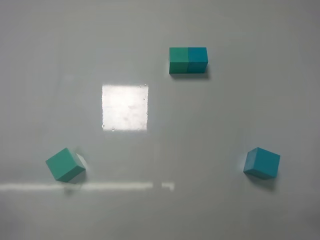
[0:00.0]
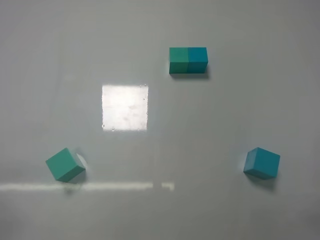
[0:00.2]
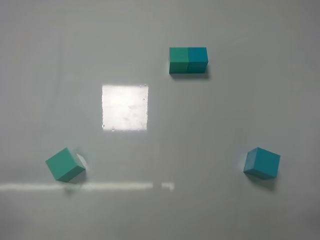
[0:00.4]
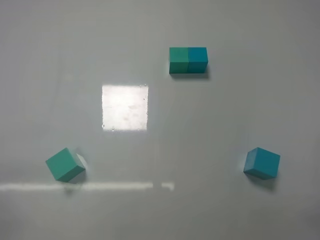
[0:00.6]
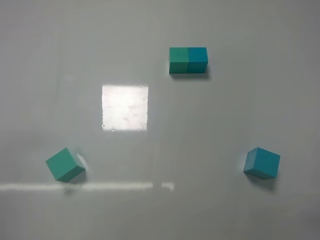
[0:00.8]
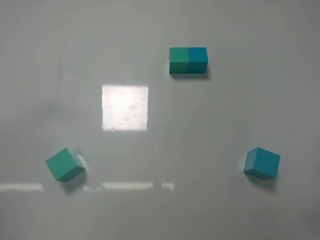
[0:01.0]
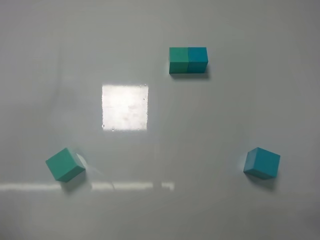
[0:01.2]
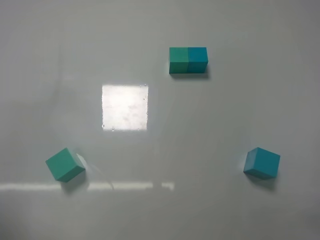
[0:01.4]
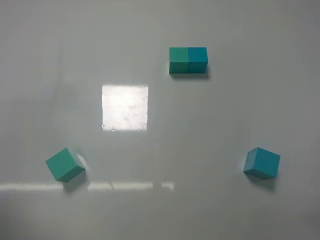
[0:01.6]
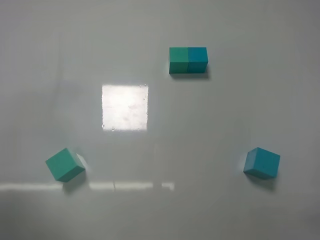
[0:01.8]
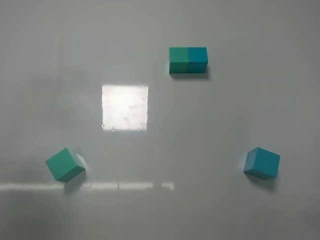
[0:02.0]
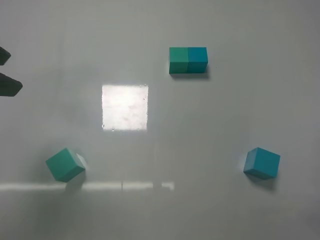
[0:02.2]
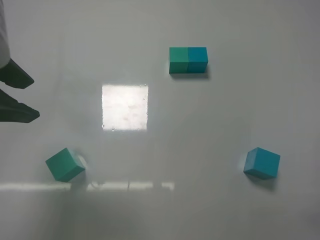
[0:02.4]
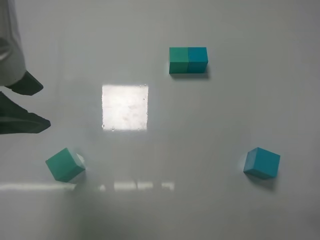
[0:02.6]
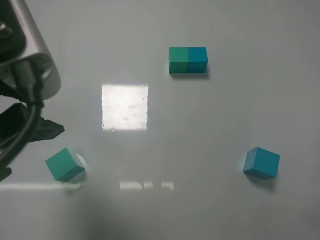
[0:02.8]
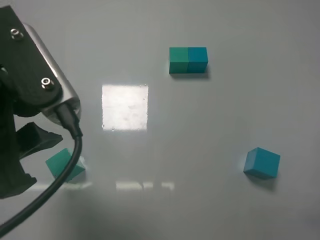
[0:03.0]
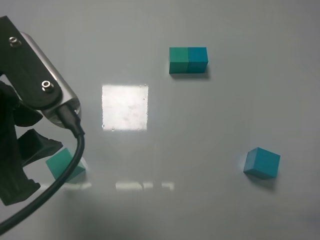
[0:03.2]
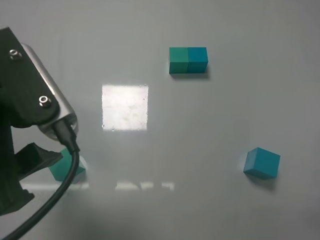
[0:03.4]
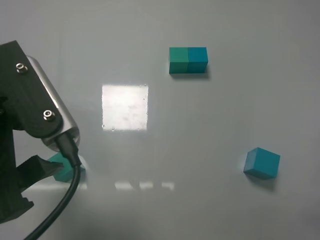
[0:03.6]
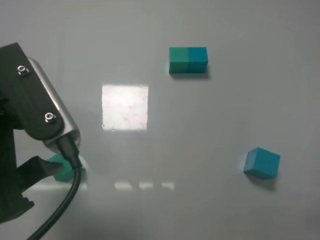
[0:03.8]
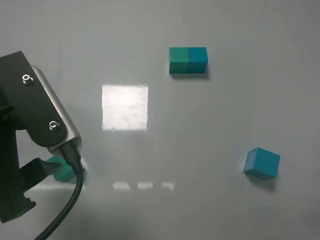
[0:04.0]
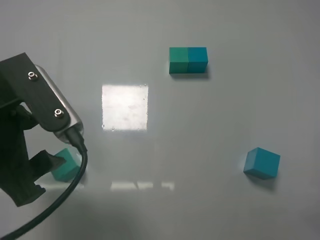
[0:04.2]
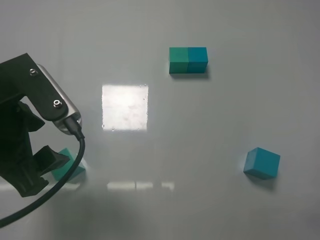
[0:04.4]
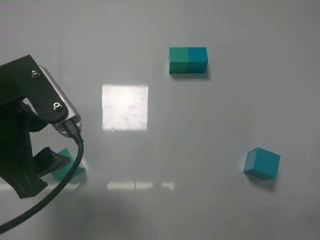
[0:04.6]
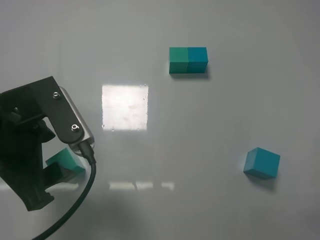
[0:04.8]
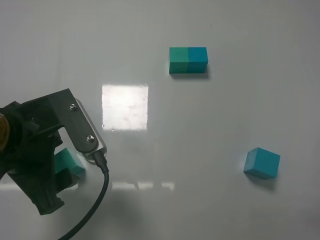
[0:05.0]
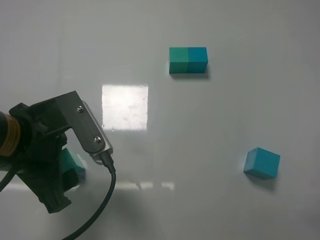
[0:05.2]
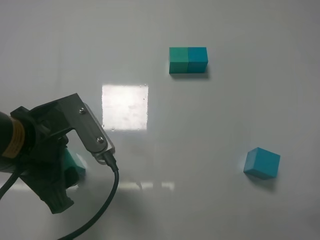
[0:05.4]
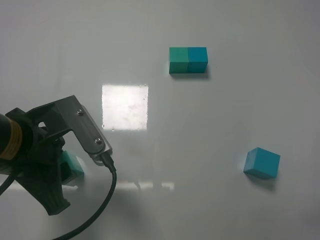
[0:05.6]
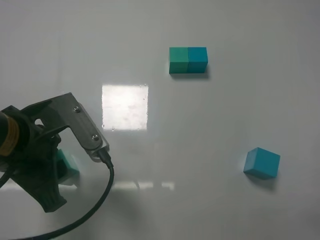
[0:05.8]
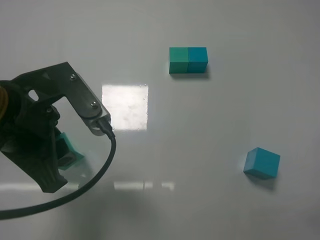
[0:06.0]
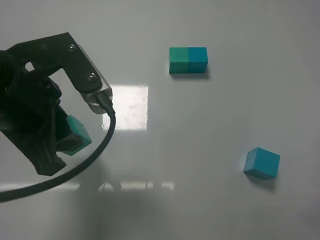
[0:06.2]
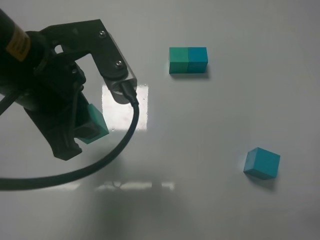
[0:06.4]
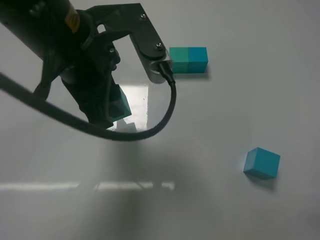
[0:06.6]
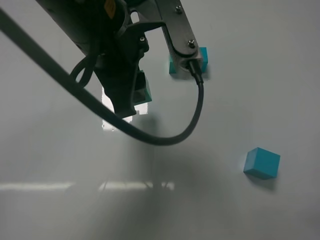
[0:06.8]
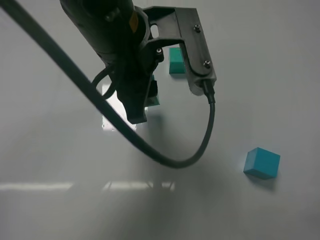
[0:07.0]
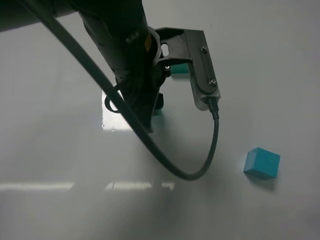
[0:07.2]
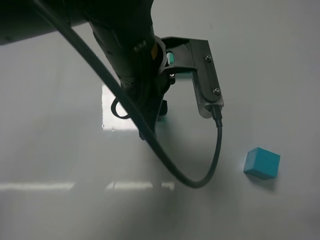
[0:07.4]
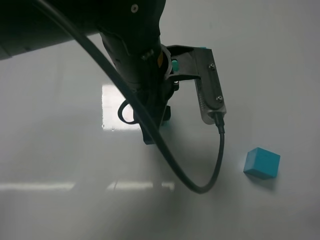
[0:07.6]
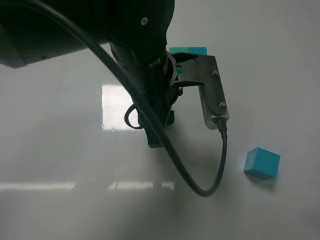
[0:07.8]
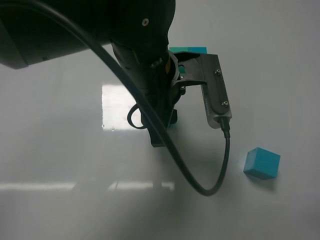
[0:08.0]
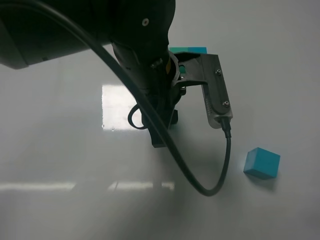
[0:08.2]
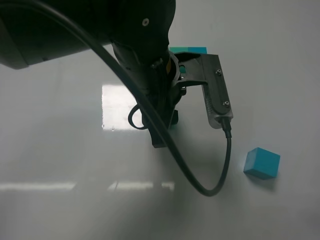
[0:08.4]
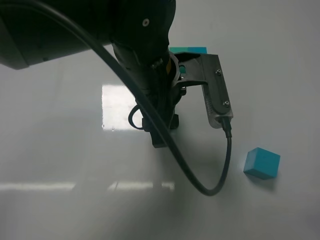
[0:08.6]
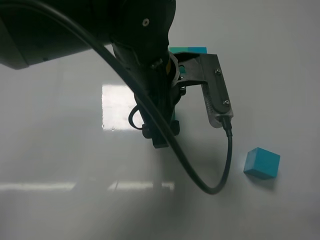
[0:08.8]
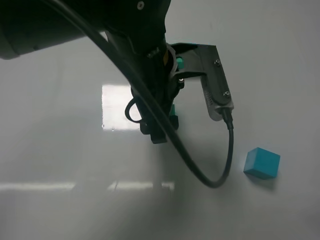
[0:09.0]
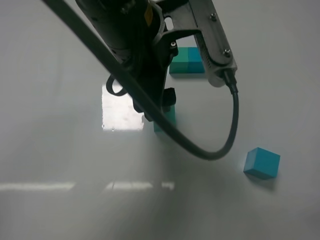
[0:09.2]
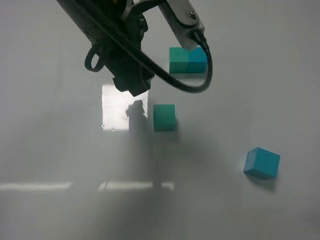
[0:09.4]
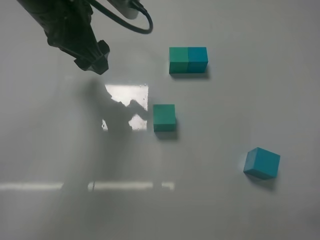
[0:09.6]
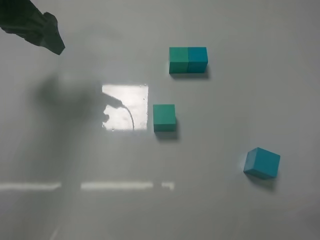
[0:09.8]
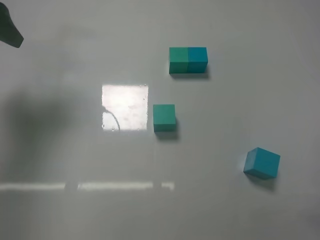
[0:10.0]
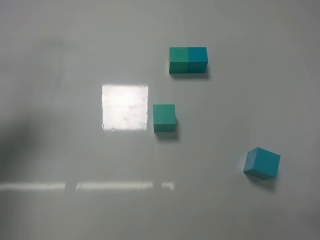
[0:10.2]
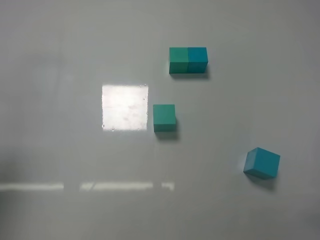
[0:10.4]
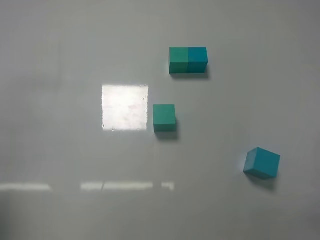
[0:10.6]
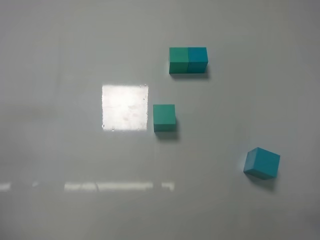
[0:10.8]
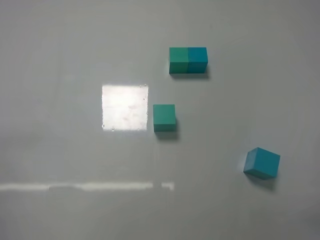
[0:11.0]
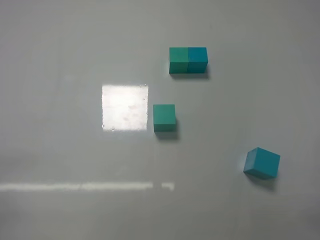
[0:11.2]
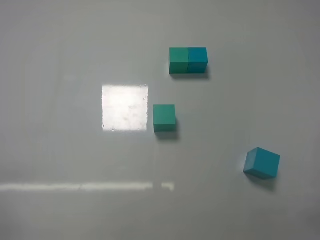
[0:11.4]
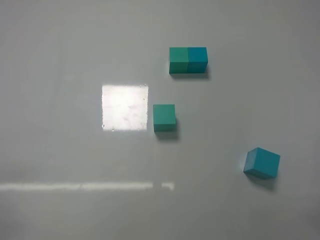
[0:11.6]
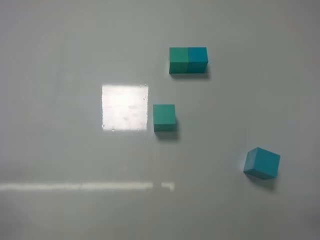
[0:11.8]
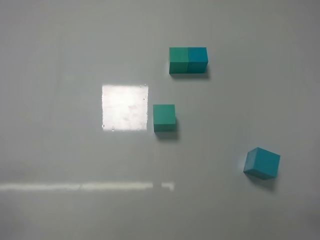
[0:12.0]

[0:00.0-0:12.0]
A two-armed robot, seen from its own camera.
Task of the whole recording: According to the building block template in front, assemble the scattered blocks together.
Step, 0:00.0 to 0:05.6: Grasp the green block with left gripper.
Step, 0:05.8 to 0:09.0: Adjust the position of the cube with the left gripper.
0:01.6 to 0:03.0: The left gripper goes some 10 cm to the right, and closes up.
0:03.0 to 0:04.4: The left gripper moves approximately 5 cm, and opens its fingers.
0:04.4 to 0:06.0: The left gripper closes up.
0:06.0 to 0:07.6: The left gripper is displaced to the right and forward by roughly 15 cm.
0:07.6 to 0:09.0: The left gripper opens.
0:09.0 to 0:10.4: The left gripper is displaced to the left by approximately 35 cm.
0:10.4 to 0:12.0: The left gripper travels downward and backward by roughly 25 cm.

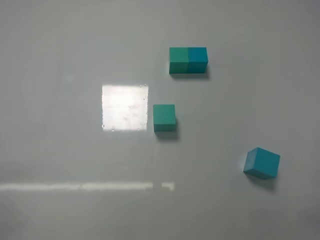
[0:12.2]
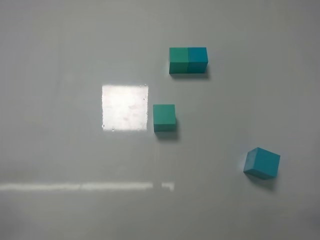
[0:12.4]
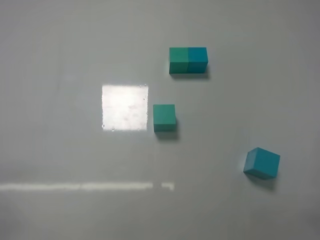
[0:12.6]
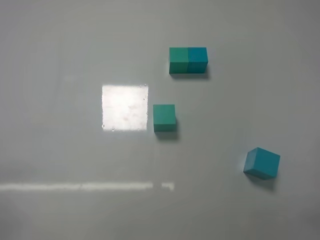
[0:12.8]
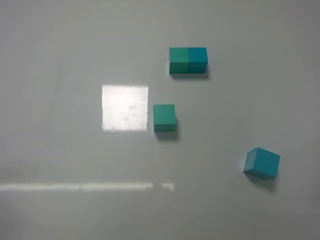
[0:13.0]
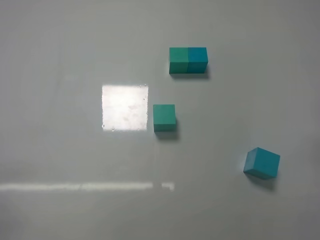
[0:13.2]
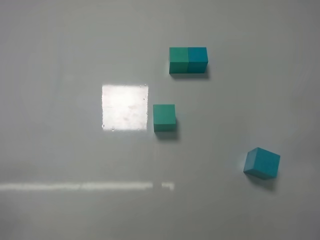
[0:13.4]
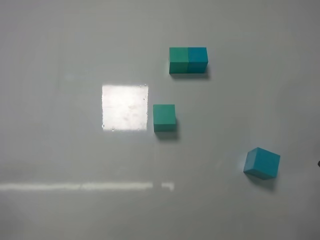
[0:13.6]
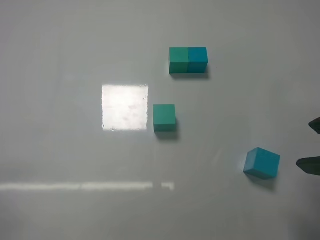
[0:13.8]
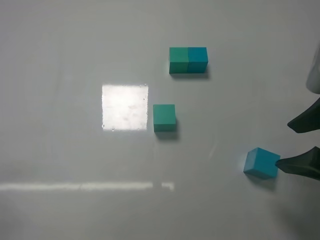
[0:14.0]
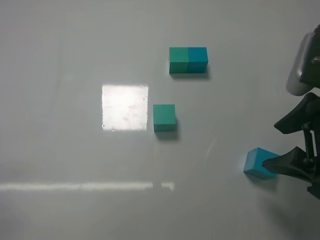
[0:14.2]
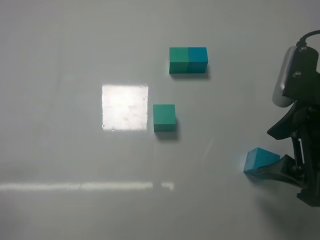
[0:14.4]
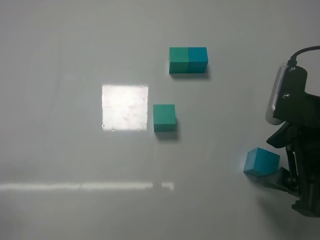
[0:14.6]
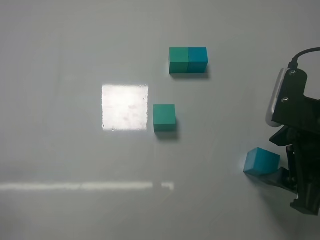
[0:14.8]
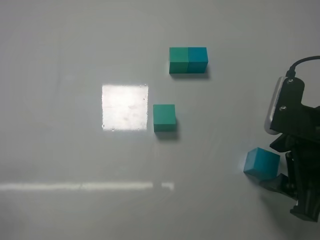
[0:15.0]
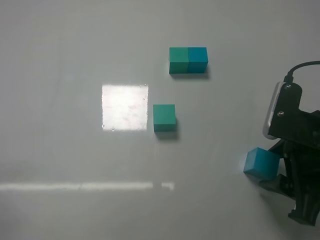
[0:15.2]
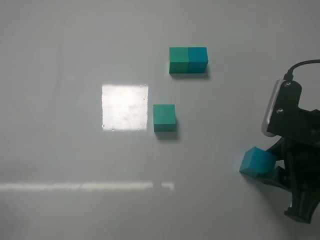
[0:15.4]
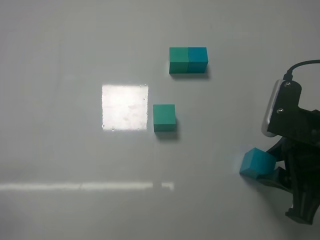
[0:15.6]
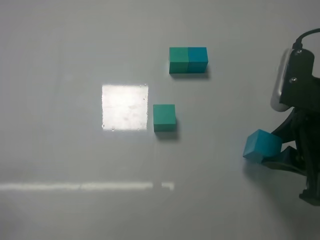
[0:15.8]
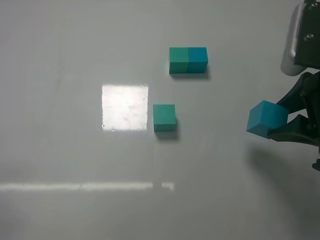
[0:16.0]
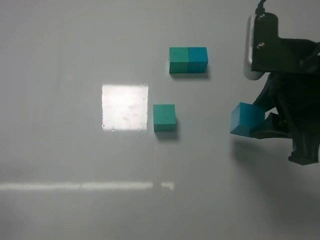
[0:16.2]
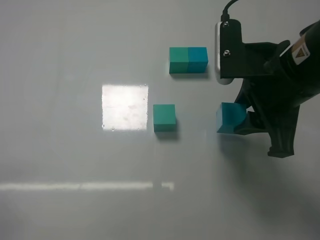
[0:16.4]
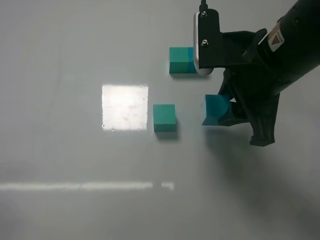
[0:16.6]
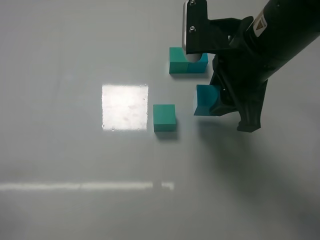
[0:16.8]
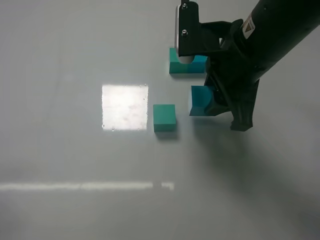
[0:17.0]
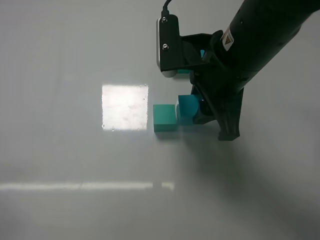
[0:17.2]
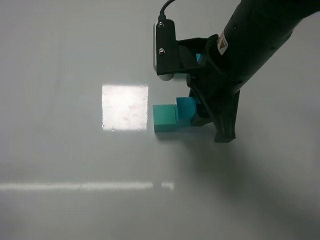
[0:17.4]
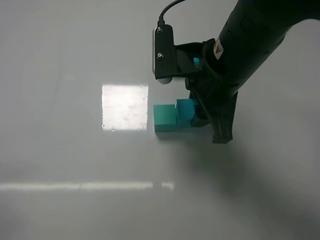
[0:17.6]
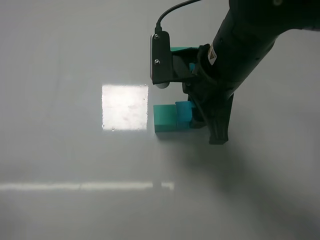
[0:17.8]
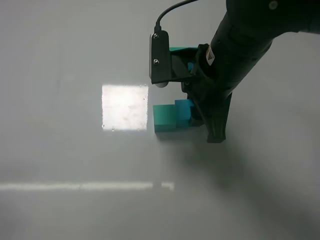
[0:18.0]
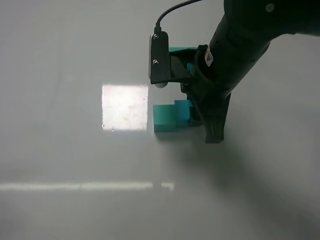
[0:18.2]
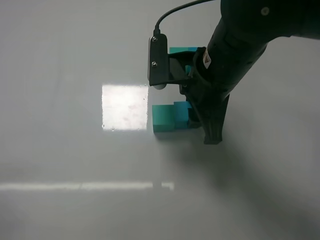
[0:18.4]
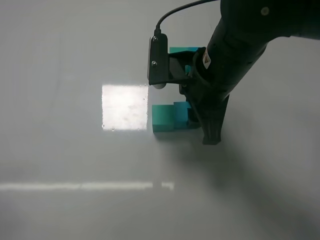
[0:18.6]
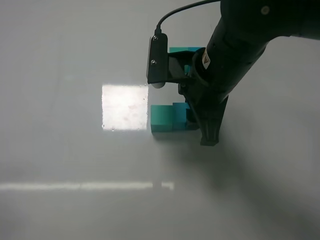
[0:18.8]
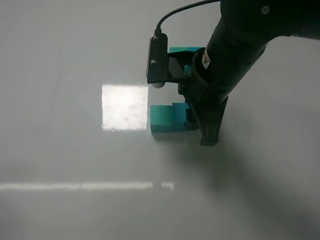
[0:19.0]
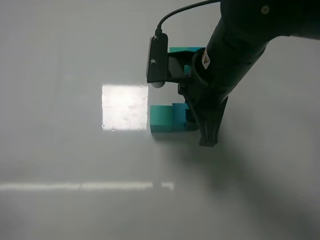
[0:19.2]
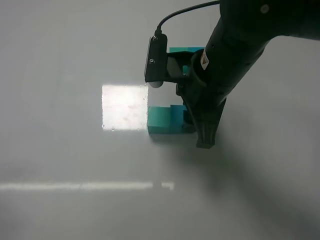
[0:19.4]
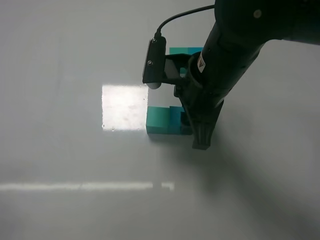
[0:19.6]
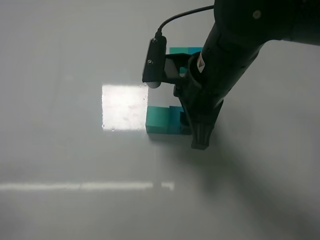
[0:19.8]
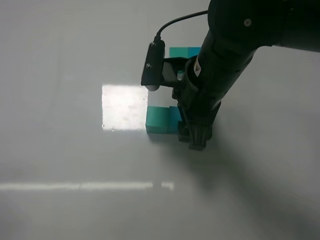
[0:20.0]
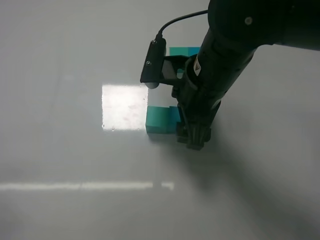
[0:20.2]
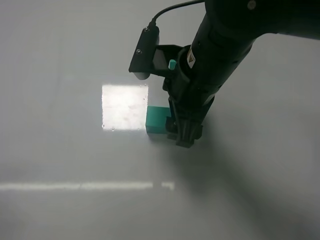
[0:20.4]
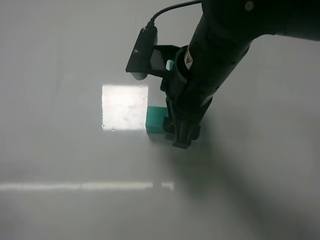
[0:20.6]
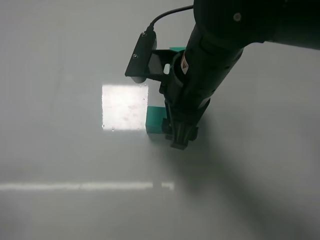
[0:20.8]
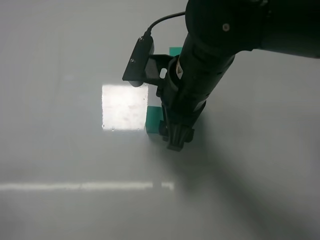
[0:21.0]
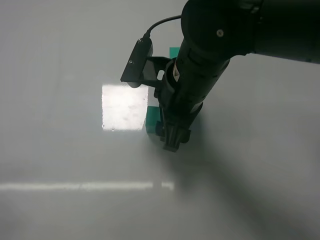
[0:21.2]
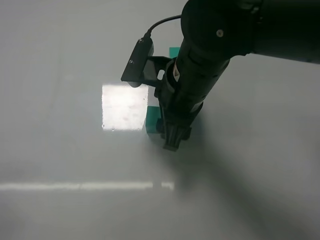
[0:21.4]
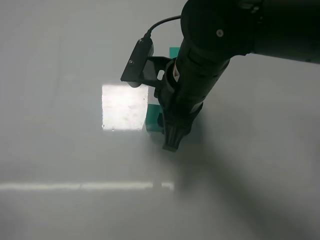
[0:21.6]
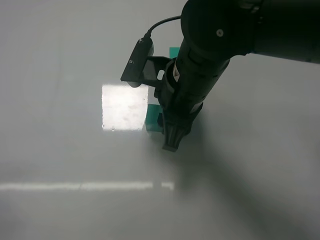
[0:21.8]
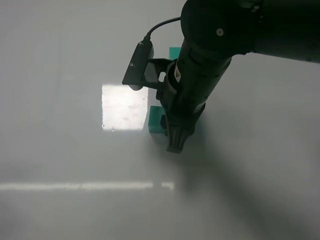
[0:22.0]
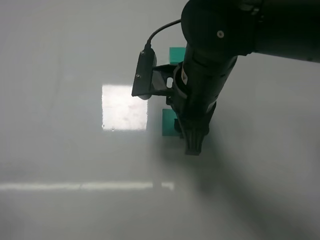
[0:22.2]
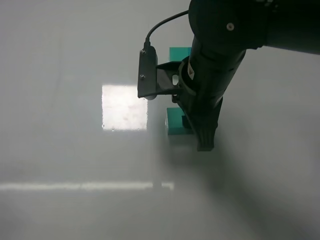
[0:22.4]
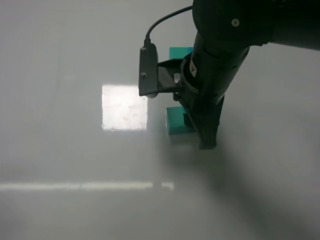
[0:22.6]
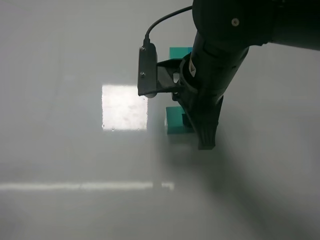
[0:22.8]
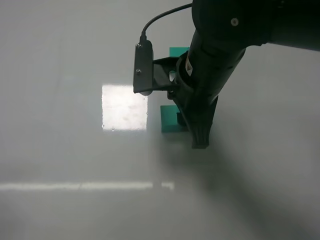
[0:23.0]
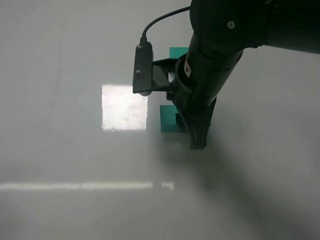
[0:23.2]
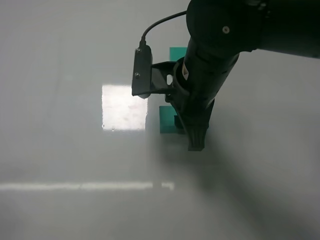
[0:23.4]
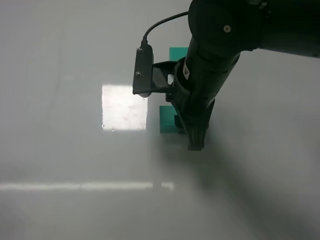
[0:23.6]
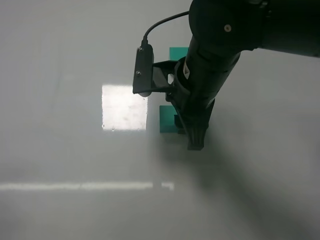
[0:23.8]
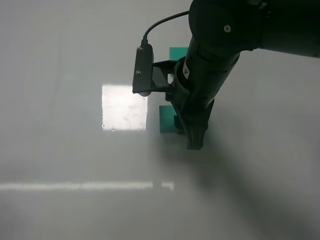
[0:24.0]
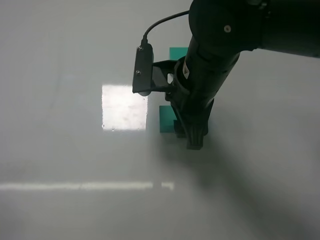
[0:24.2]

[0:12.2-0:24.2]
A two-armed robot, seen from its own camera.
Task of the whole recording: According to the building block template in front, assemble the scattered blocks together.
Step, 0:12.2 to 0:15.2: Grasp the blue block with right gripper.
Step, 0:15.4 to 0:20.2: Put the blue cube on the right of the green cube with the right gripper.
0:12.2 to 0:13.8: The right gripper is displaced forward, upward and to the left by roughly 15 cm.
0:13.8 to 0:15.2: The right gripper goes some 5 cm downward.
0:15.2 to 0:16.6: The right gripper is displaced upward, to the left and forward by roughly 15 cm.
0:16.6 to 0:18.2: The right gripper shifts about 5 cm to the left.
0:18.2 to 0:19.8: The grippers make only small movements.
0:19.8 to 0:21.2: The right gripper opens up.
0:21.2 to 0:22.6: The right gripper closes up.
0:22.6 to 0:24.2: The right gripper opens its fingers.
